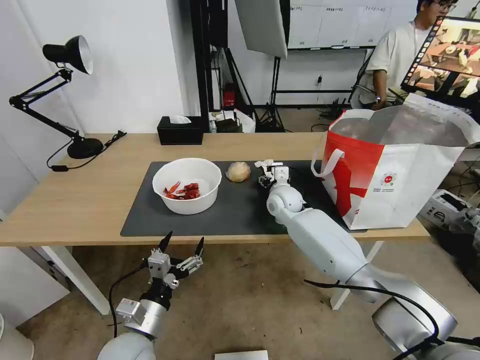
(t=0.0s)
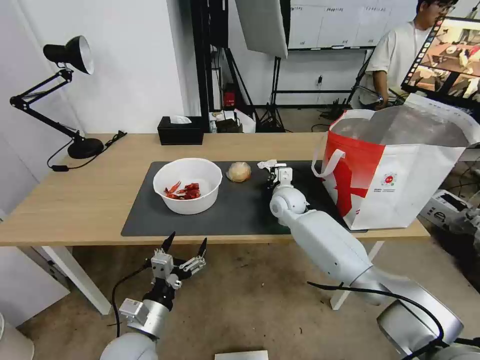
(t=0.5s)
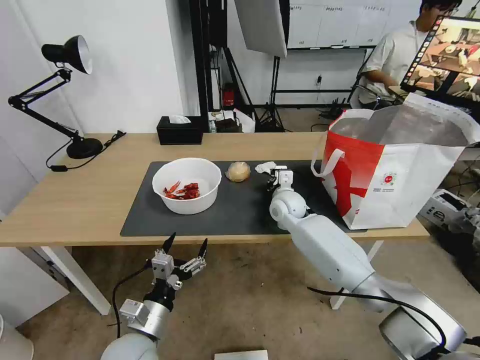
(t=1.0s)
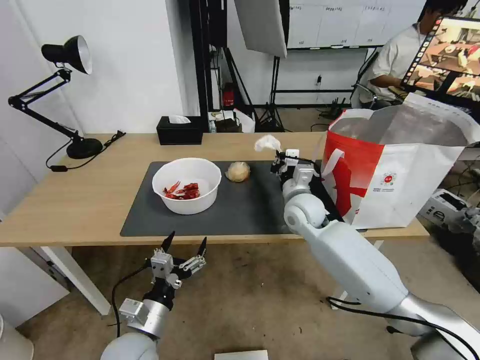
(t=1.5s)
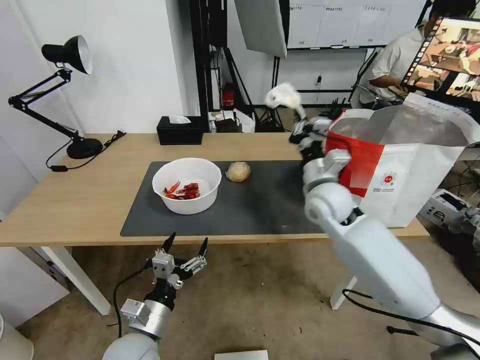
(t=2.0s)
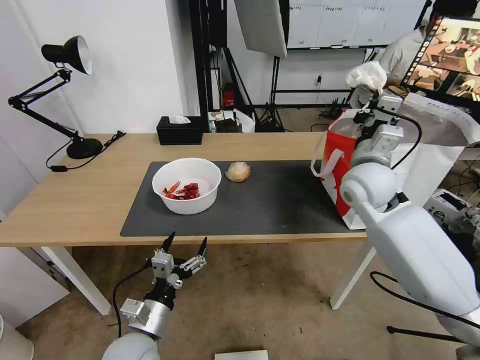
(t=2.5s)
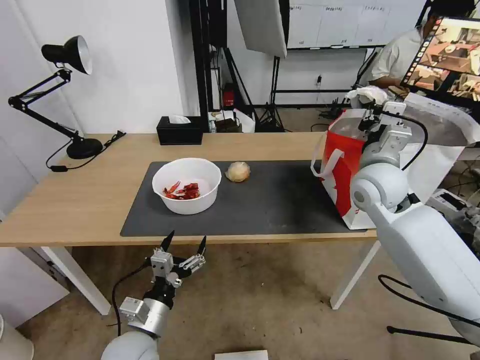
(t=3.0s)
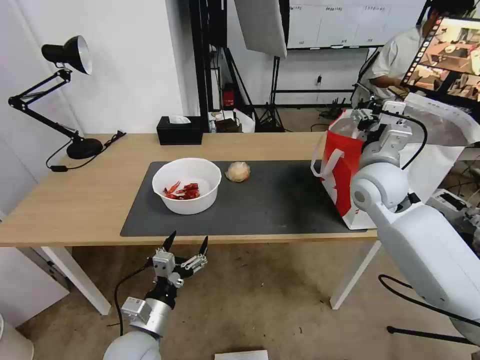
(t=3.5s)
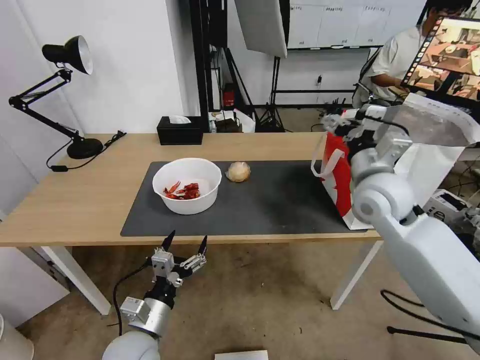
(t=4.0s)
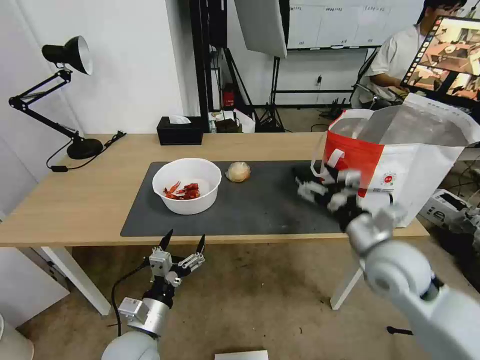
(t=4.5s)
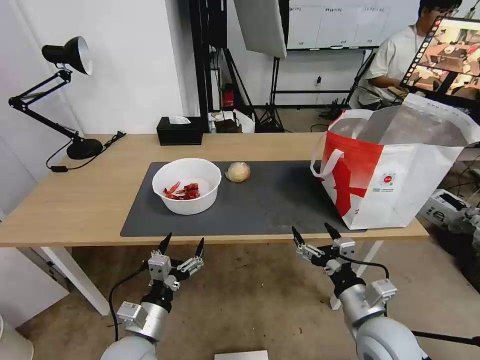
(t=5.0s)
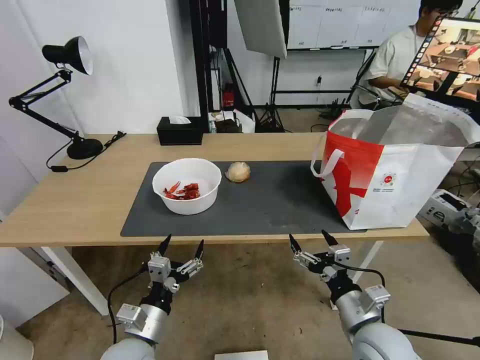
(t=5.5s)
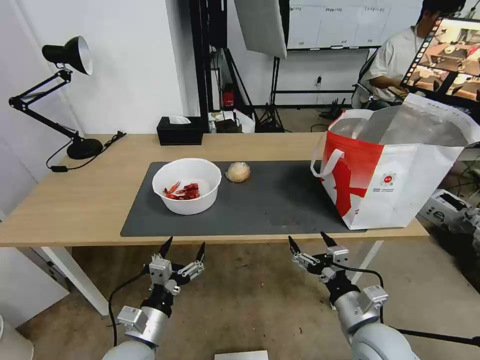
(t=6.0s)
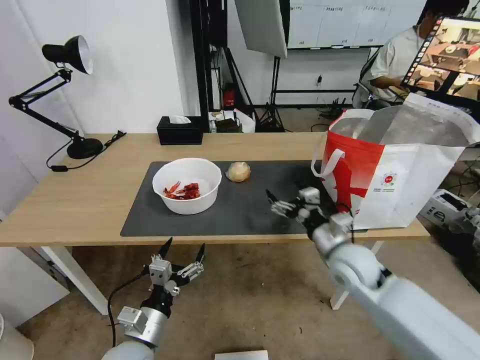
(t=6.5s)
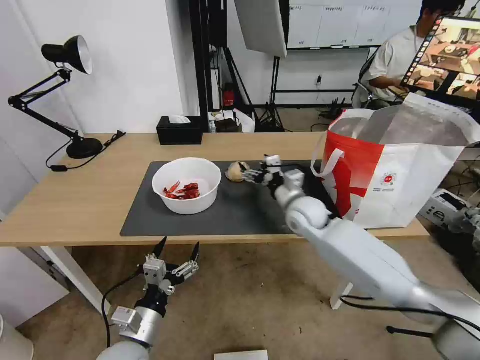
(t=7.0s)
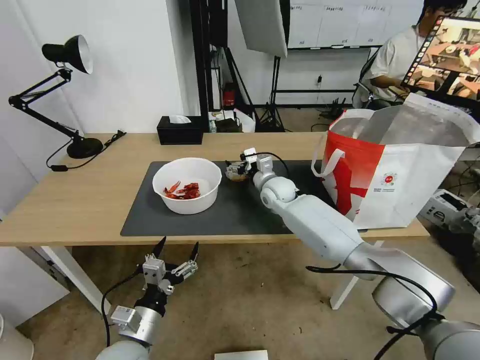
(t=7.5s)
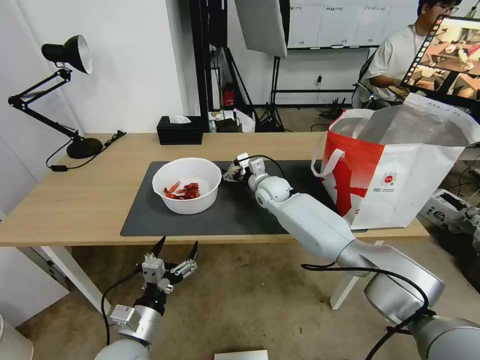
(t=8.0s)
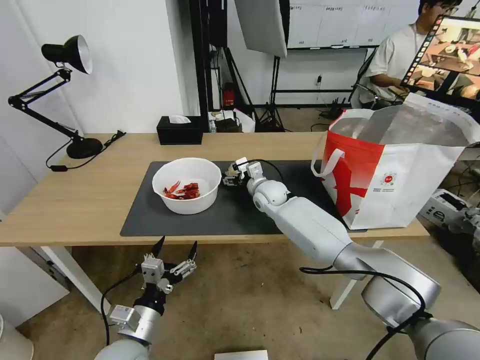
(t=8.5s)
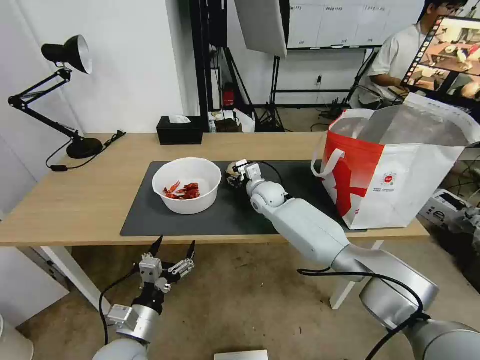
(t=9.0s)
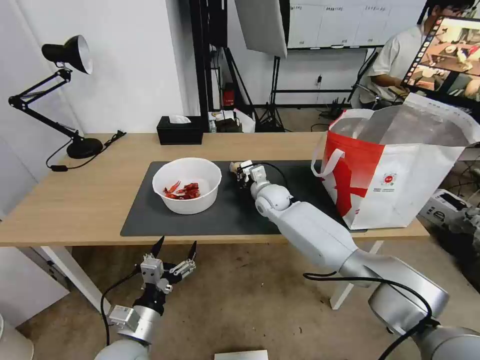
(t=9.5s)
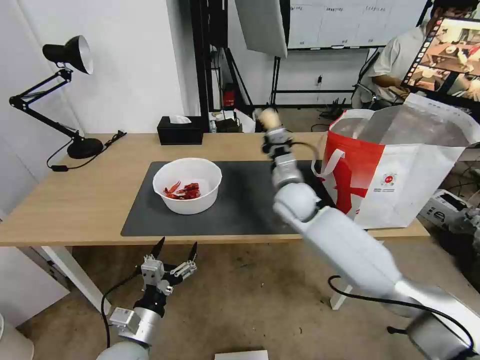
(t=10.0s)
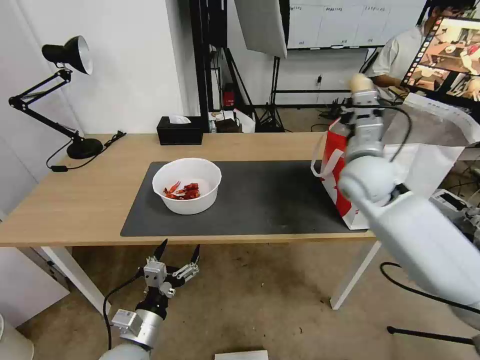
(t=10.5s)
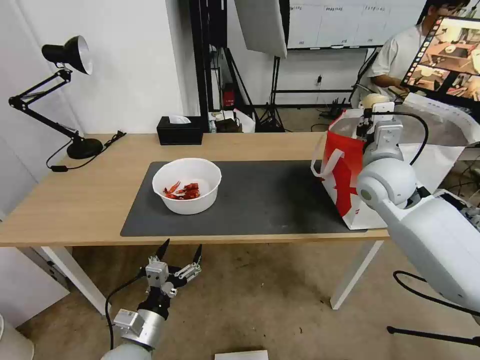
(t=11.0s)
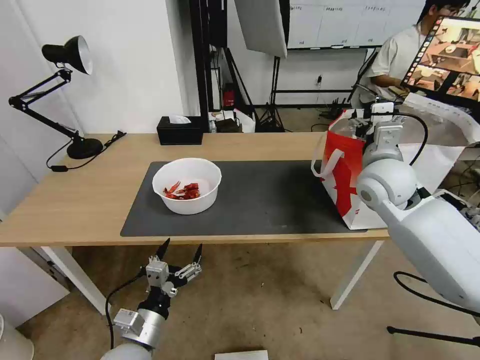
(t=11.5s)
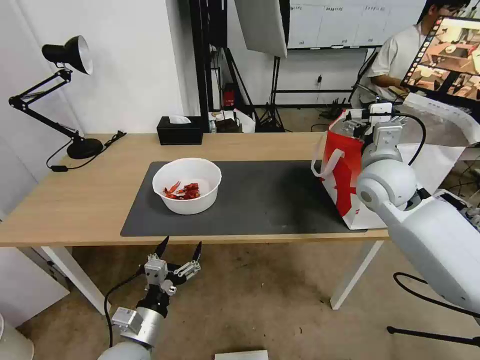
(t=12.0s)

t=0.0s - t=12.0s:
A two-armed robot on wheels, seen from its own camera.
Task of the whole recording: Pick up the trash from the table and place it into the takeout bag.
t=0.0s - t=2.0s: The right gripper is displaced upward, backward and to the right by some 15 cm, and closes up.
t=2.0s - t=4.0s: The right gripper shifts some 5 cm to the right, and opens.
t=4.0s - t=6.0s: The right gripper moves backward and downward, some 30 cm.
t=6.0s - t=8.0s: The right gripper is displaced forward and to the left by about 40 cm.
t=8.0s - t=10.0s: The right gripper goes roughly 10 cm backward and upward, and closes its fingers.
t=10.0s - t=12.0s: The right gripper heads to the right and upward, covering some 15 cm, and opens.

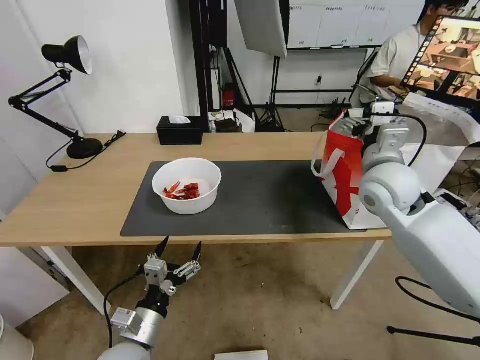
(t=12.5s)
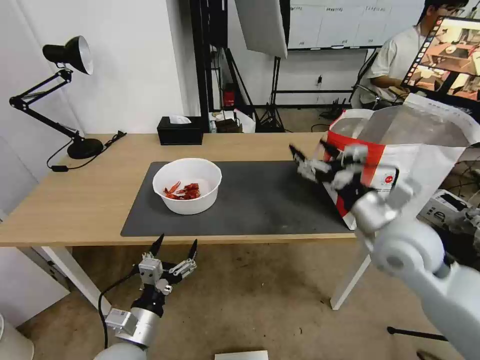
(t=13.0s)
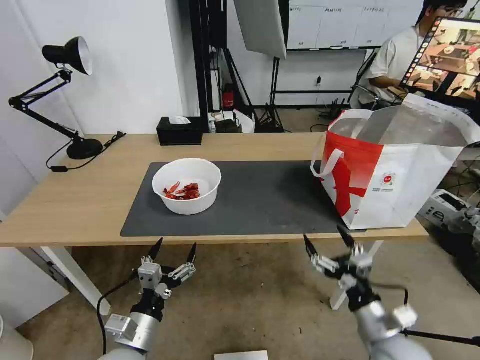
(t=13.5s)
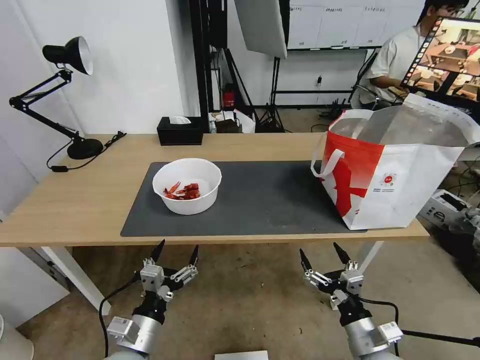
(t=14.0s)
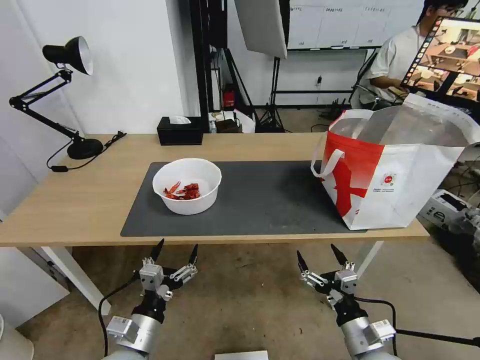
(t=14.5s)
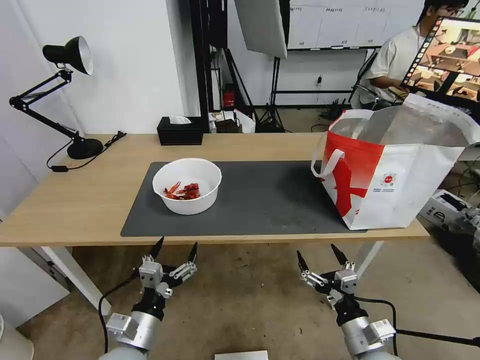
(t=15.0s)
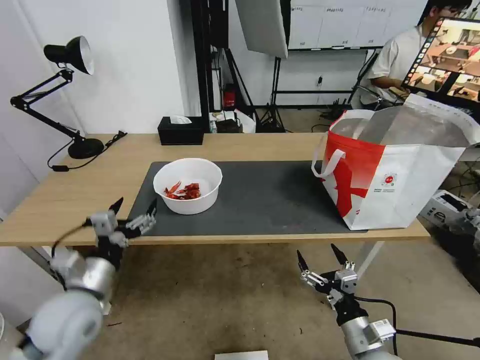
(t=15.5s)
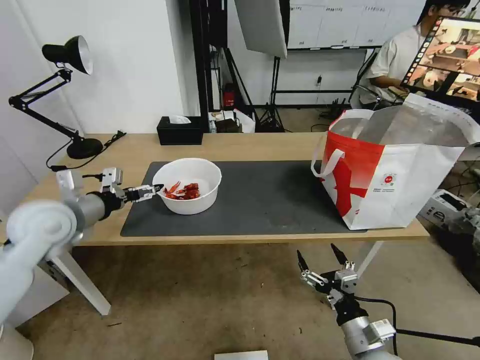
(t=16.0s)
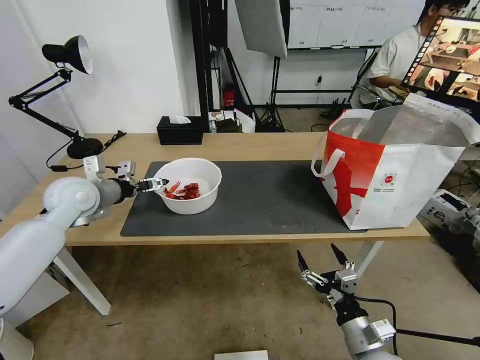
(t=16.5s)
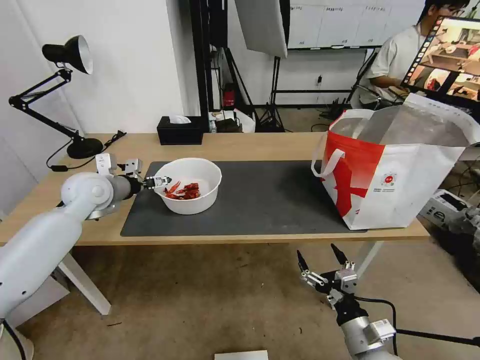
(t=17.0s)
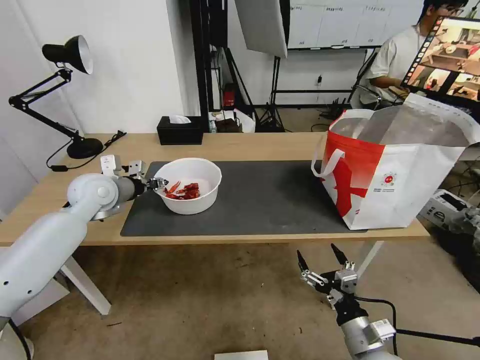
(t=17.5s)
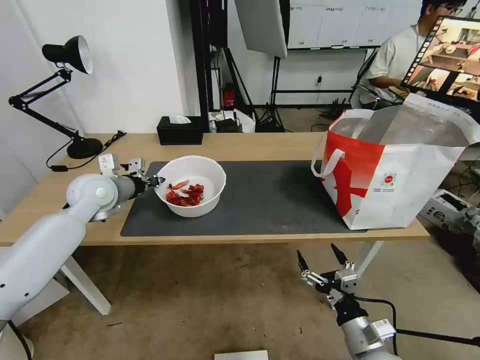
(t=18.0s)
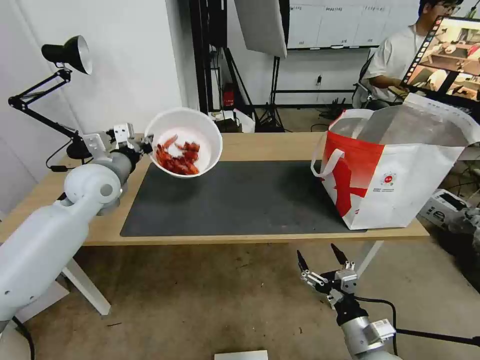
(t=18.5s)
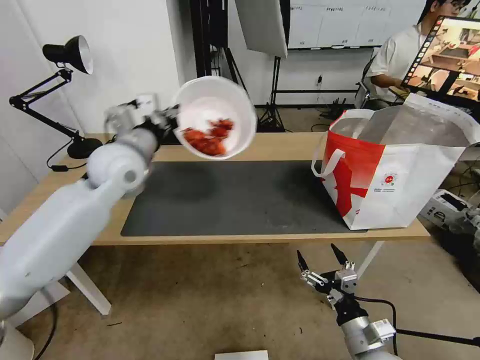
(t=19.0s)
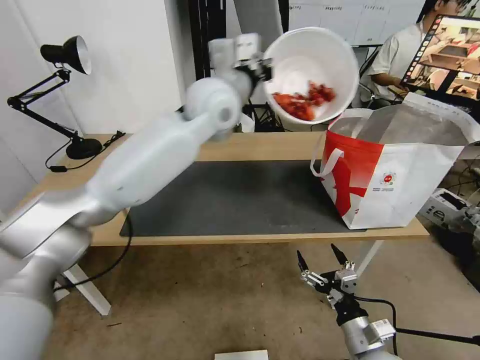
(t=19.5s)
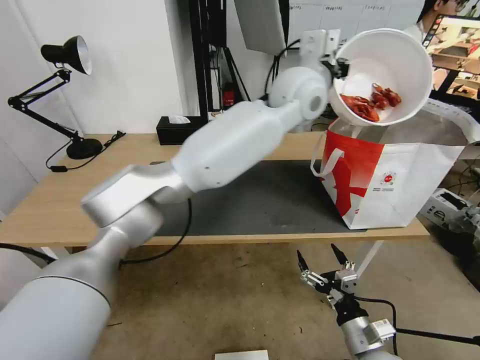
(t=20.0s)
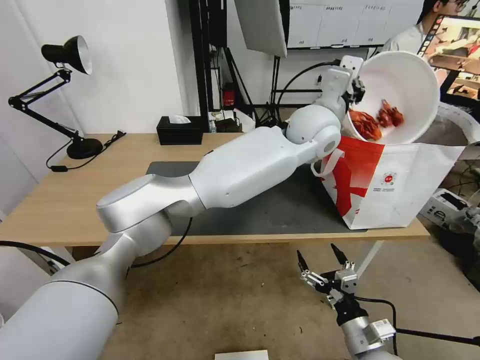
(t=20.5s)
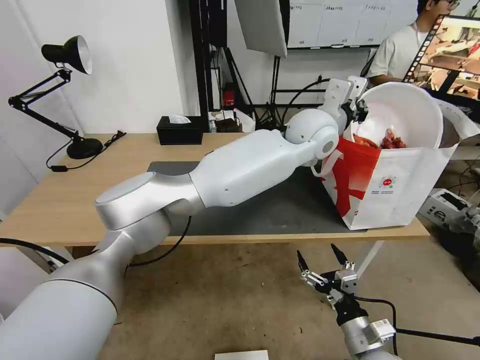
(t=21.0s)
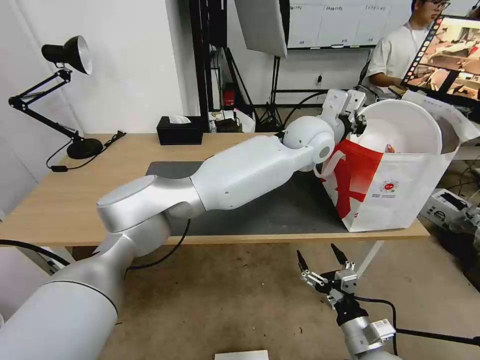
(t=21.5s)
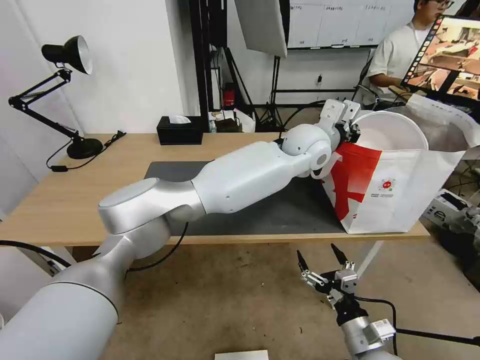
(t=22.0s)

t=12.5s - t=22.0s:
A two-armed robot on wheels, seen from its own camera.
Task of the whole recording: Pick up the trash from the table and place it into the takeout bag.
t=12.5s - t=14.5s: The right gripper goes some 35 cm backward and downward.
t=14.5s - t=16.5s: The left gripper heads forward, upward and to the left, covering approximately 35 cm.
t=16.5s - t=18.0s: The left gripper closes up.
t=18.0s - t=20.0s: The left gripper heads to the right and upward, covering about 50 cm.
t=20.0s - t=22.0s: The left gripper is displaced downward by about 10 cm.

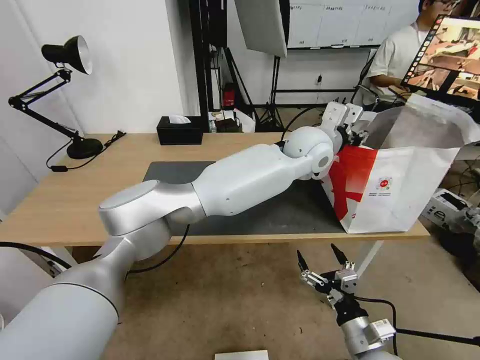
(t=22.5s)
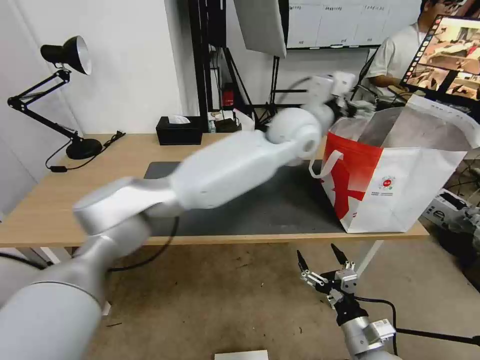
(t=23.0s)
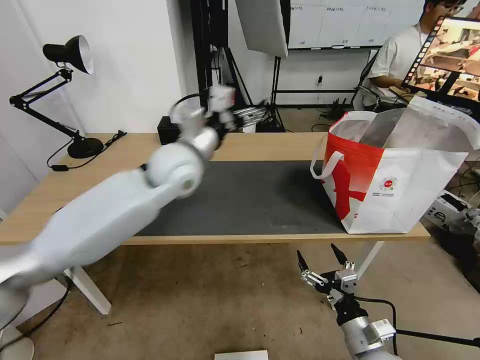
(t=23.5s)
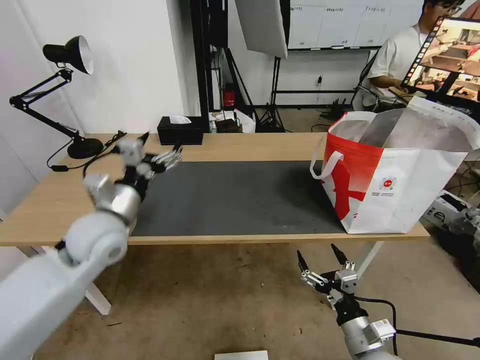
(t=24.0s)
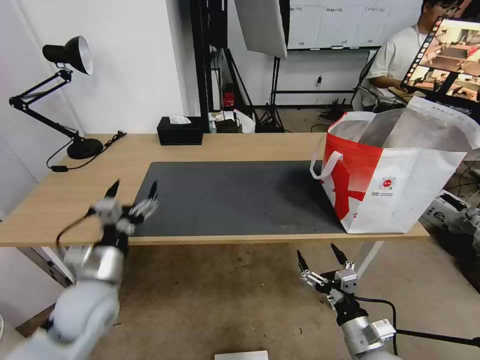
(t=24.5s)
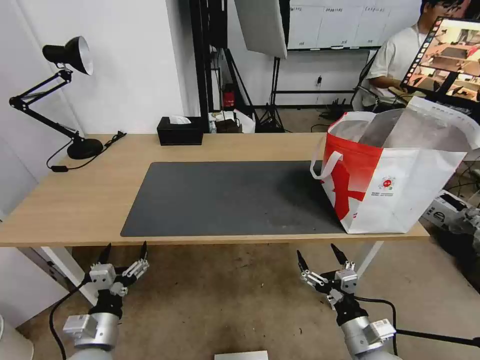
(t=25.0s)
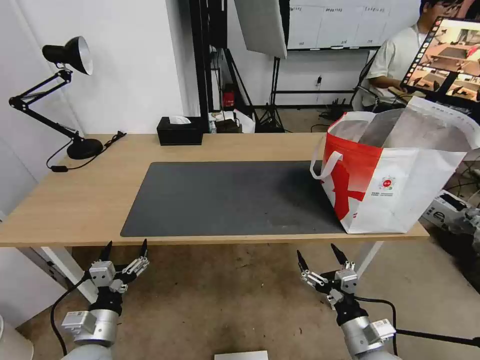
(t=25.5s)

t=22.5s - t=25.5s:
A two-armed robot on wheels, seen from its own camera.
Task of the whole recording: Pick up the trash from the table and place it into the takeout bag.
t=22.5s - t=24.0s: The left gripper goes roughly 40 cm to the left, and opens.
t=24.0s - t=25.5s: The left gripper moves downward and backward, about 25 cm.

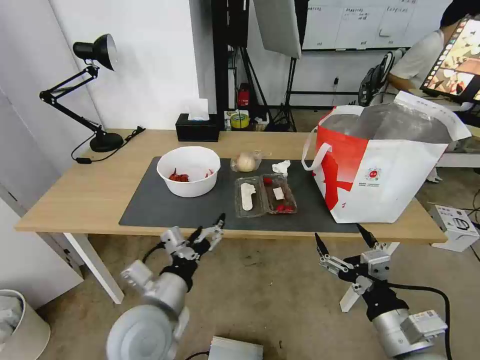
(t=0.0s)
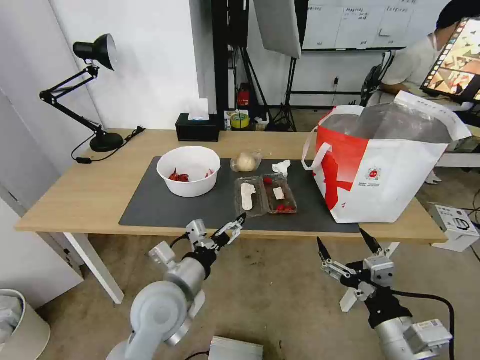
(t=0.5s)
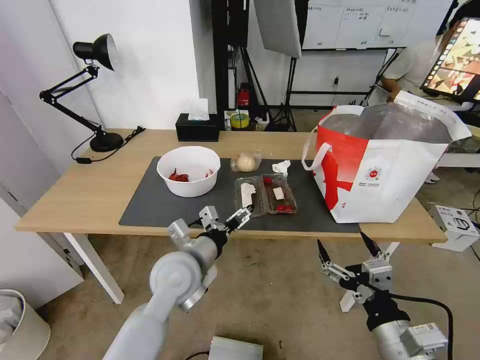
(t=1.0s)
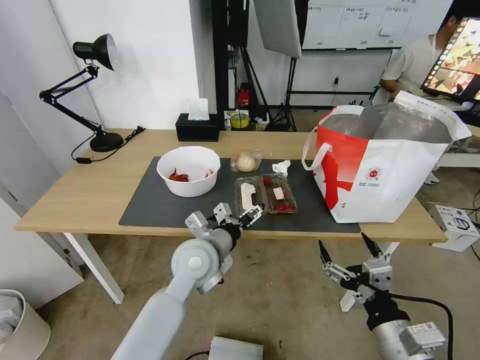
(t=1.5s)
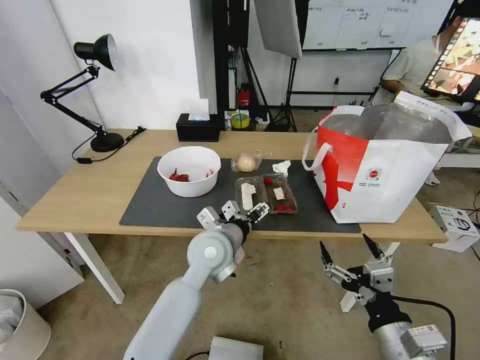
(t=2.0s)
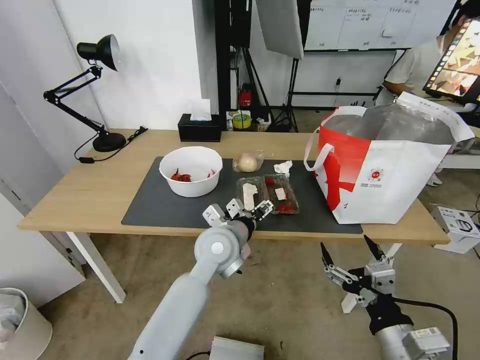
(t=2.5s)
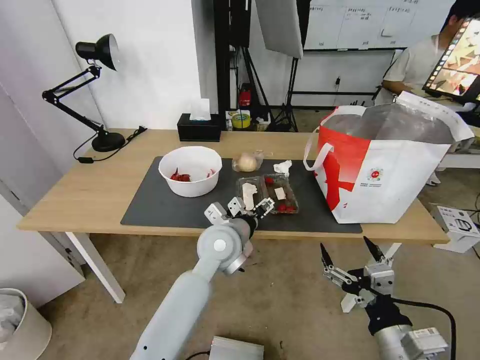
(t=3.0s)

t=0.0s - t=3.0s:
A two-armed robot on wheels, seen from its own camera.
Task of the whole recording: Pick up the trash from the table and place it into the takeout bag.
t=0.0s - t=1.5s: The left gripper shifts about 15 cm forward and to the right.
t=1.5s - t=3.0s: The left gripper moves some 5 cm.
